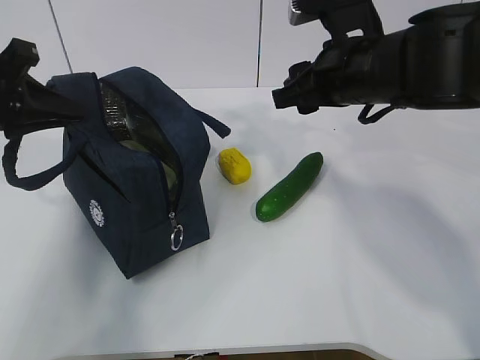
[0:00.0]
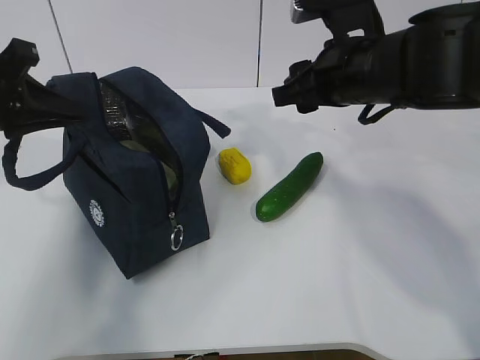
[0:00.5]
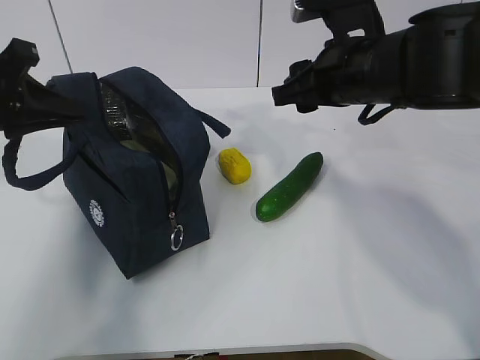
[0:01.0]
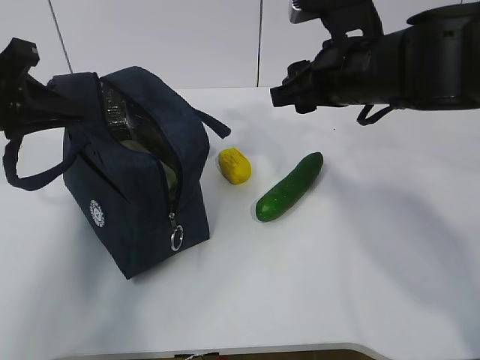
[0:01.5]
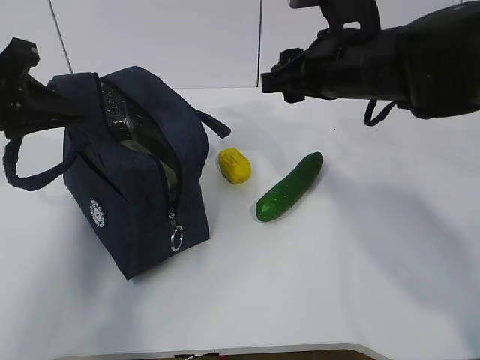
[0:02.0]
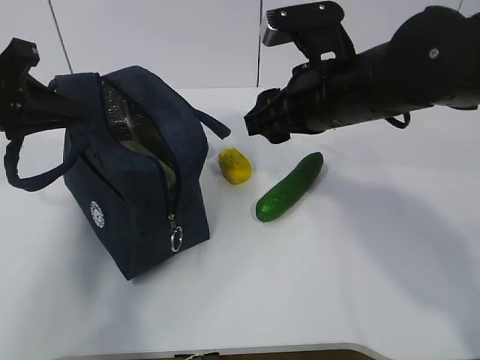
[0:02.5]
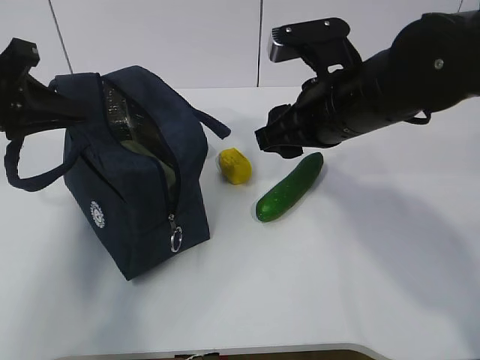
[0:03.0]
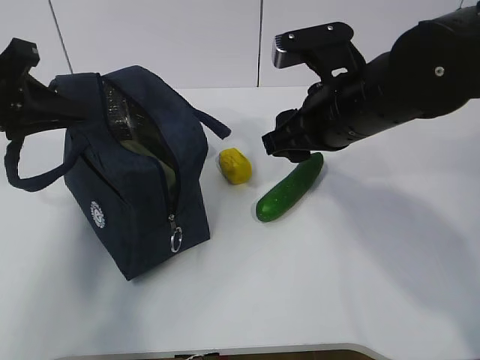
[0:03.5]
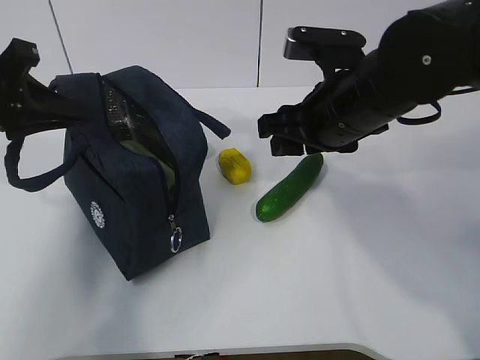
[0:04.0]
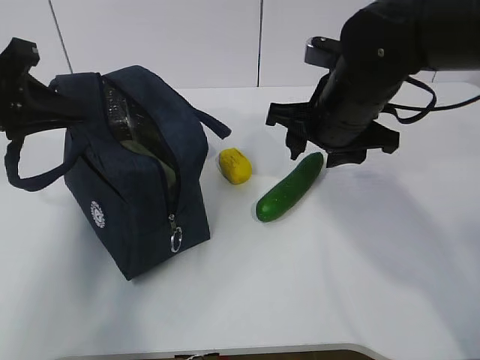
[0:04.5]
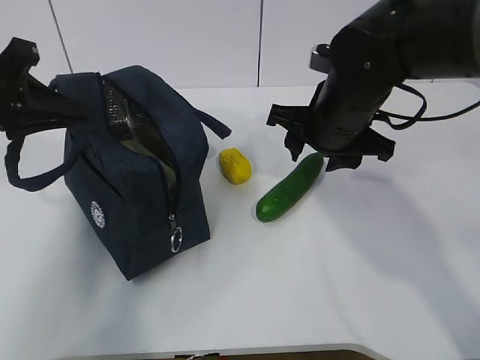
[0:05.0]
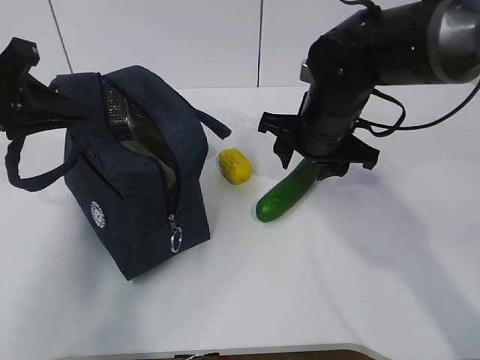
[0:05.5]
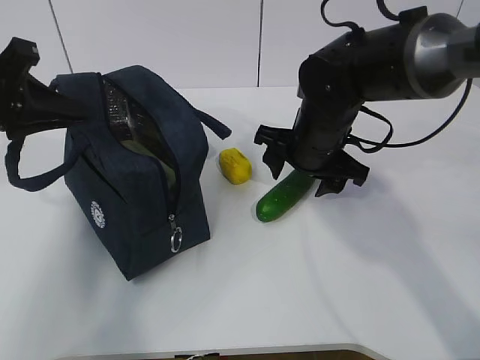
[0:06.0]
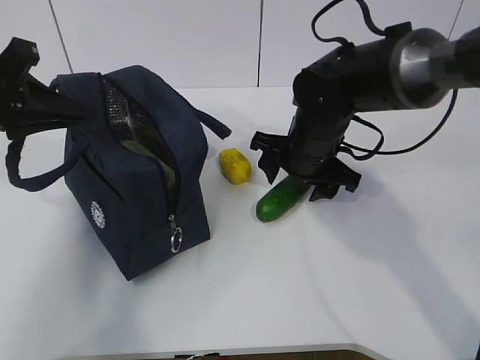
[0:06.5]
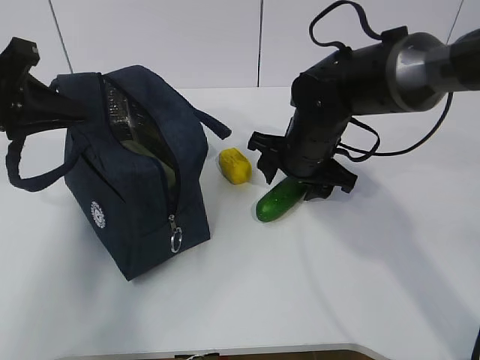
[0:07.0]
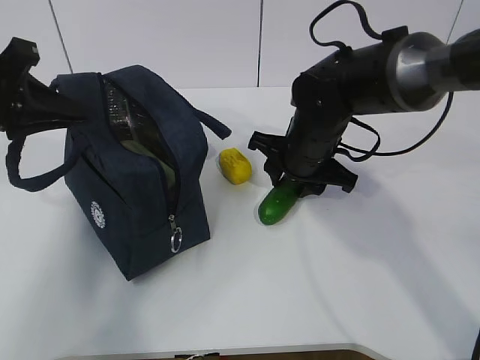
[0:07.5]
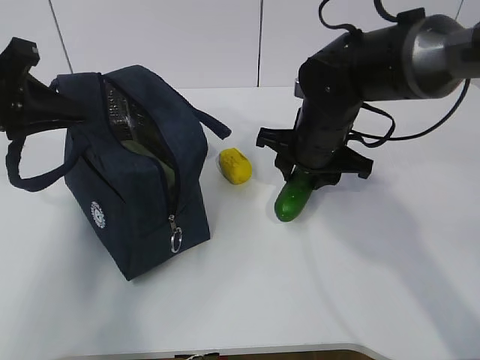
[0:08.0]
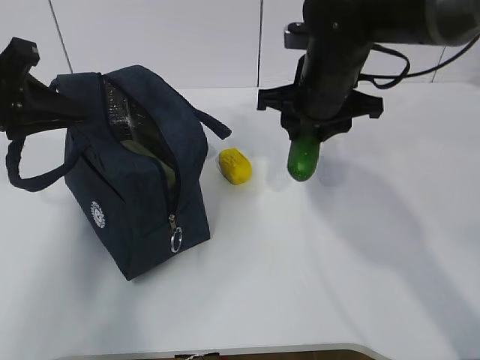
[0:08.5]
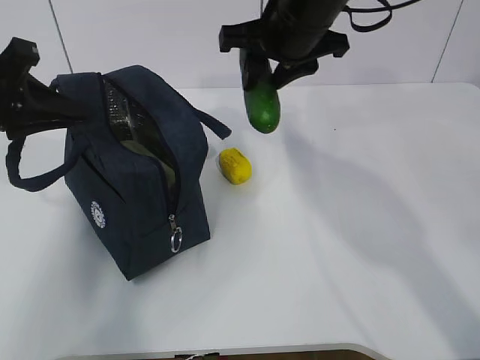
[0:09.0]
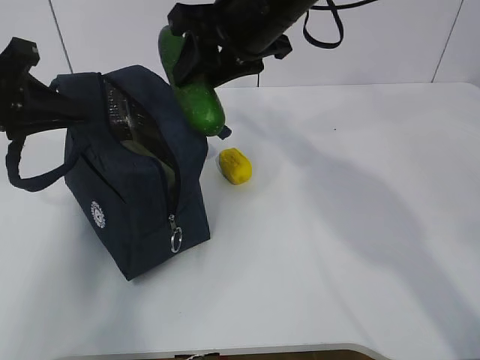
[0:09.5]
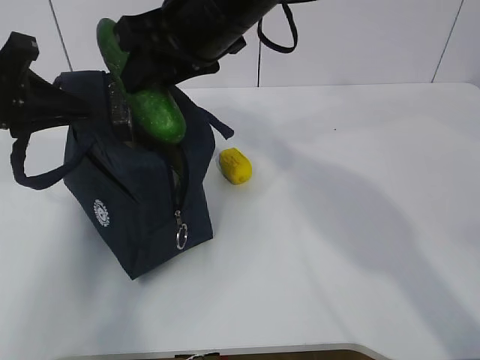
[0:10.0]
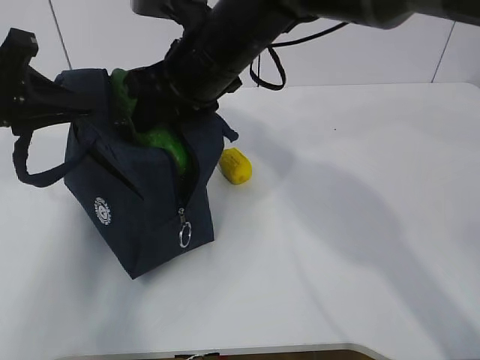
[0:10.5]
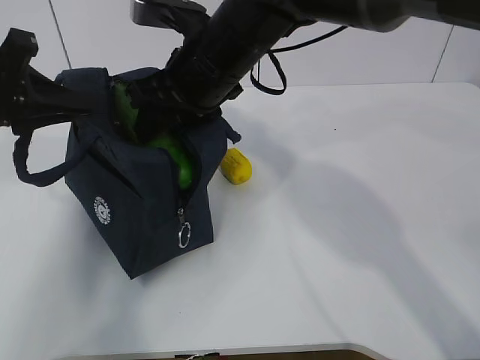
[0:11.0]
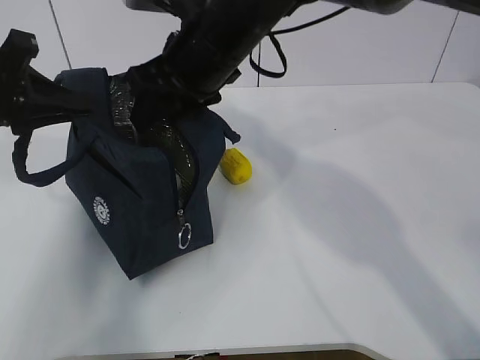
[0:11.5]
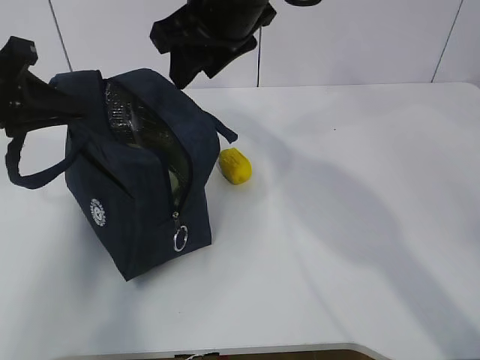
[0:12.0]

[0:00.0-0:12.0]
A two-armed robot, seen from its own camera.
Step, 1.5 to 4.0 s: Place it into the bag with your right hand.
Step, 4.5 to 9.0 s: Grab the lemon with your right hand.
0.0 to 2.0 s: The grippers stay close to where they were, moving slightly.
4.0 to 6.0 s: The right gripper travels downward and forward by about 10 cm.
6.0 to 8.0 s: The right gripper closes up.
8.0 to 10.0 s: The right gripper goes some 20 cm upward and to the left.
10.0 to 12.0 s: The grippers move only a little.

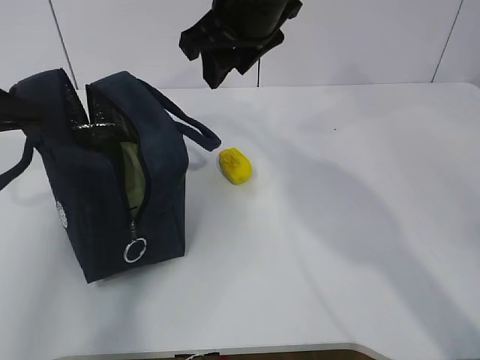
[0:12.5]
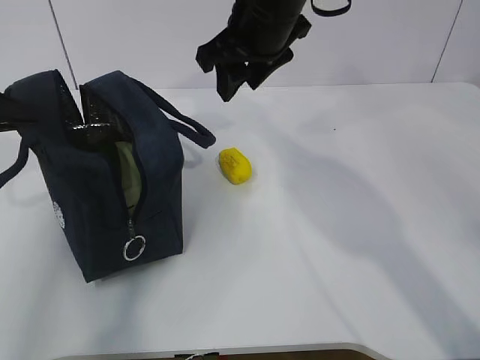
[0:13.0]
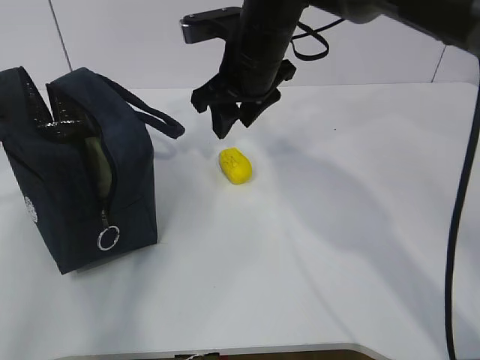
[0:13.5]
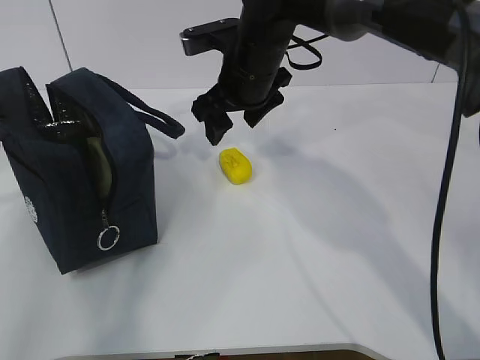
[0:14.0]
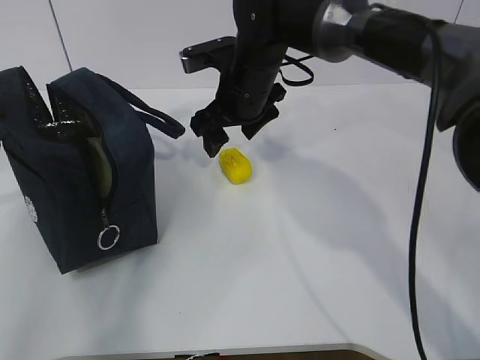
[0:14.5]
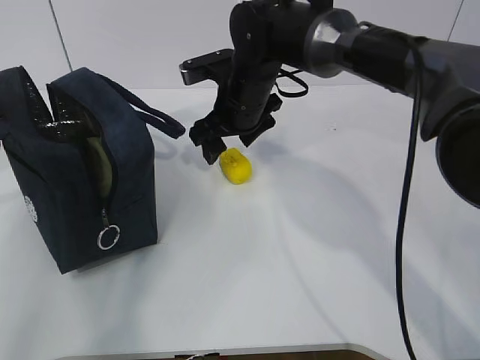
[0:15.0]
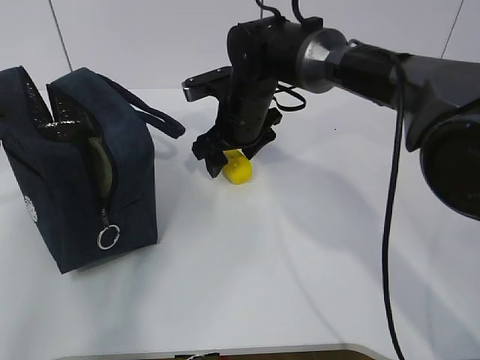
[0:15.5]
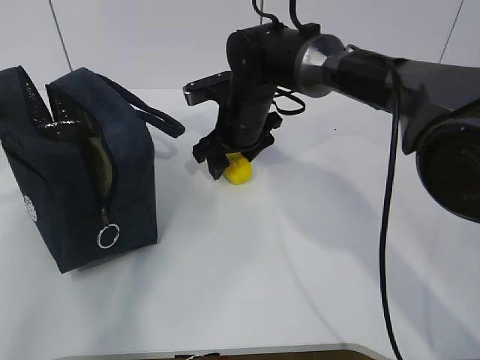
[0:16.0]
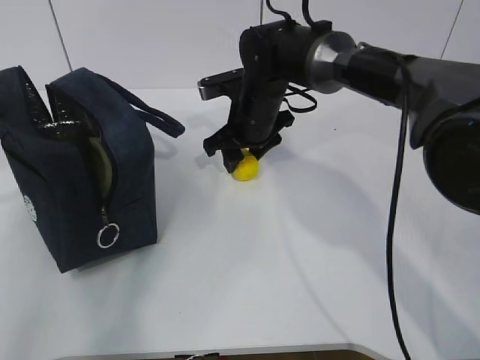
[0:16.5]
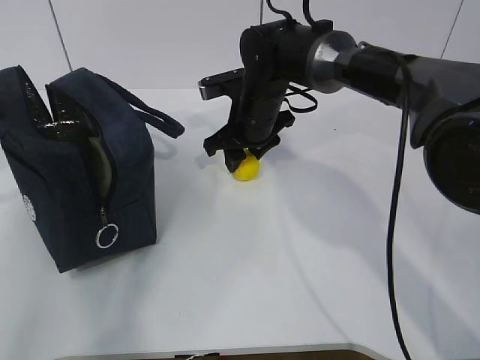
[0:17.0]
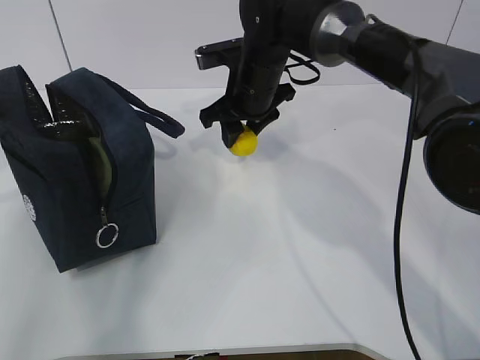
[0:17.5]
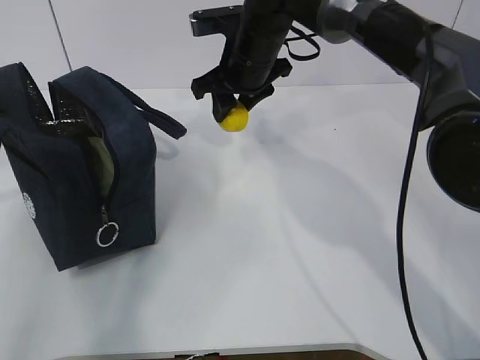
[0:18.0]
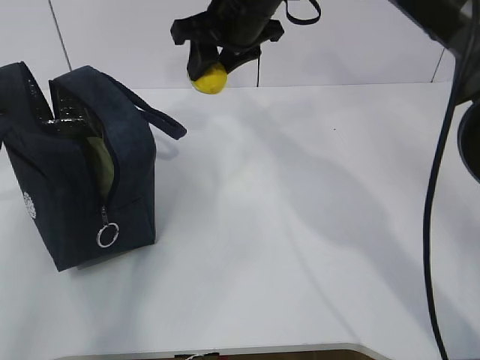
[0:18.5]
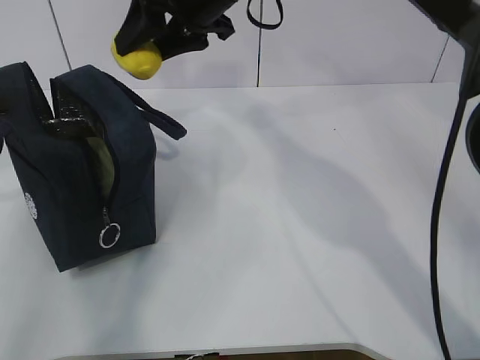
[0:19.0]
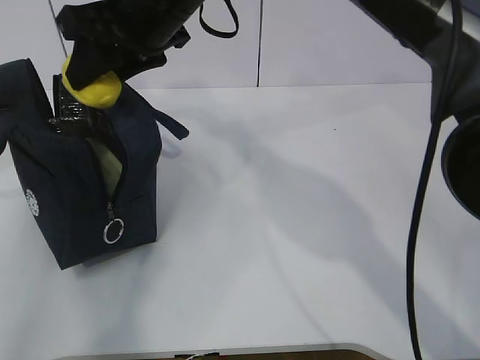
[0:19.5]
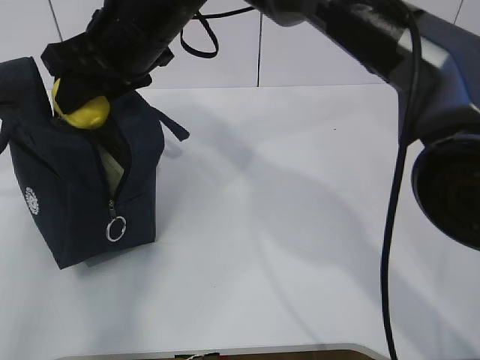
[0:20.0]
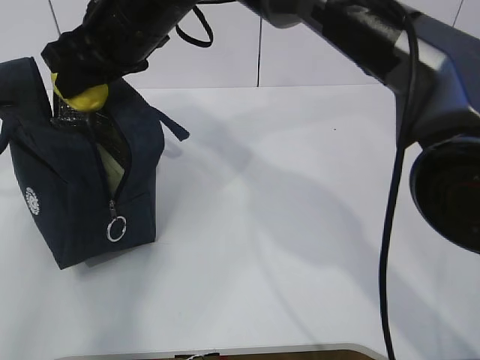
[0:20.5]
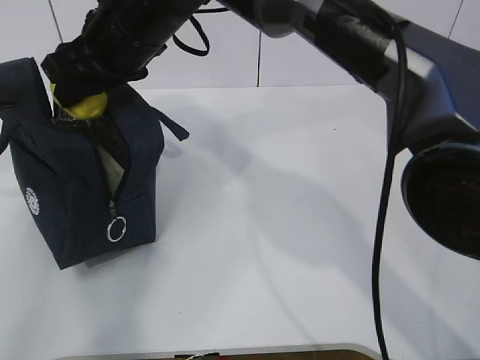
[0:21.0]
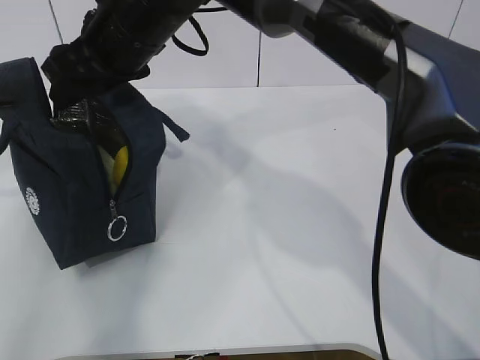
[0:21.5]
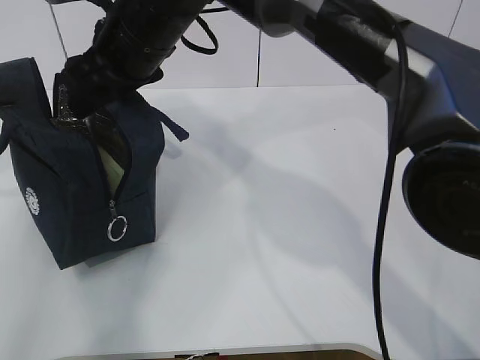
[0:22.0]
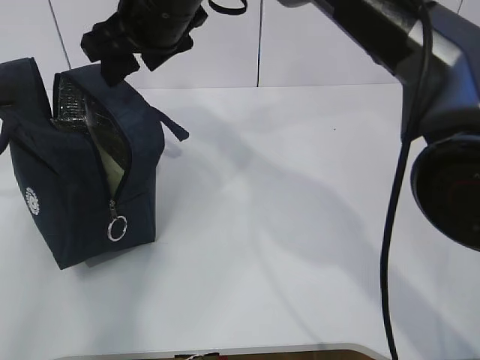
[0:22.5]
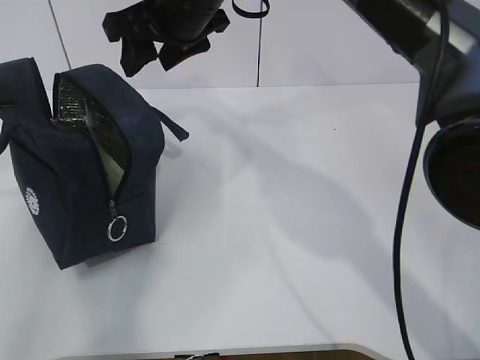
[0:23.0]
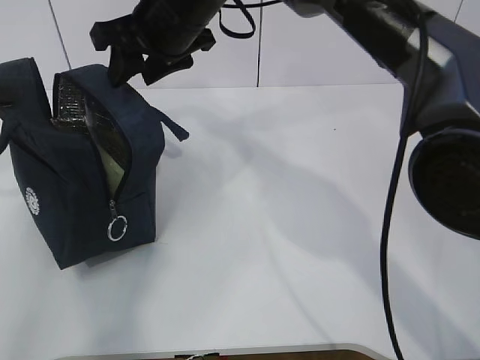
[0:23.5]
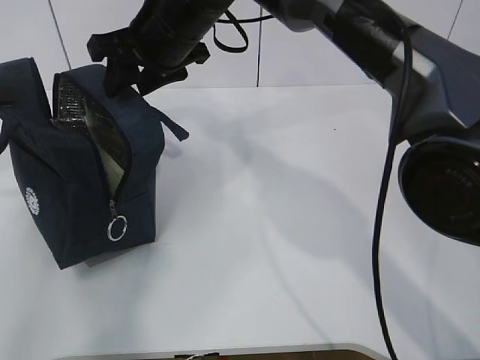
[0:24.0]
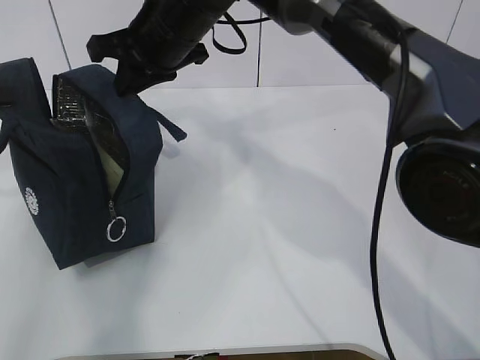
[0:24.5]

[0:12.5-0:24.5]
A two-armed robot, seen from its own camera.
Step, 13.5 to 15.5 s: Grab the lunch bag with your right hand.
Step, 16.0 to 20.5 s: Move the lunch bag to the right.
12.5 to 14.5 s: The right gripper shifts approximately 15 cm downward and forward.
14.5 to 16.5 s: The right gripper moves some 5 cm.
16.5 to 18.5 s: The right gripper moves upward, approximately 15 cm.
18.5 to 20.5 s: The right gripper is displaced to the left and backward by some 10 cm.
20.5 to 22.5 s: The grippers stay close to where they were, moving slightly.
22.5 to 24.5 s: The right gripper closes up.

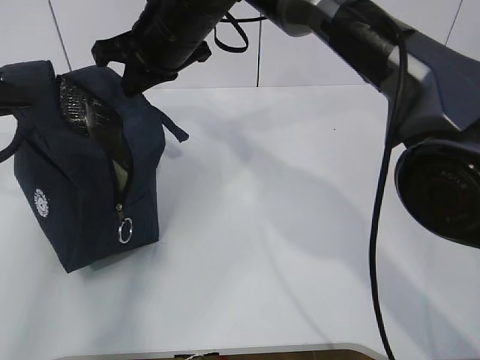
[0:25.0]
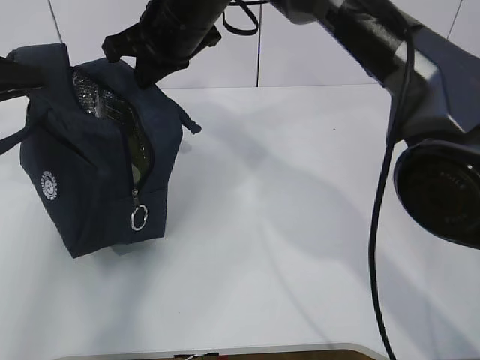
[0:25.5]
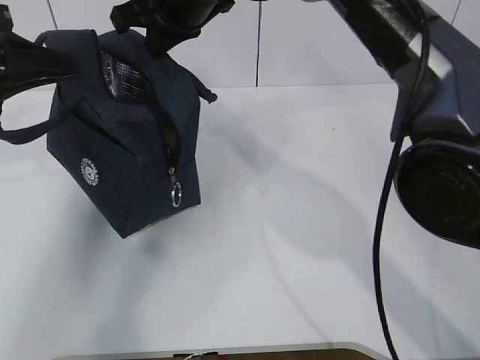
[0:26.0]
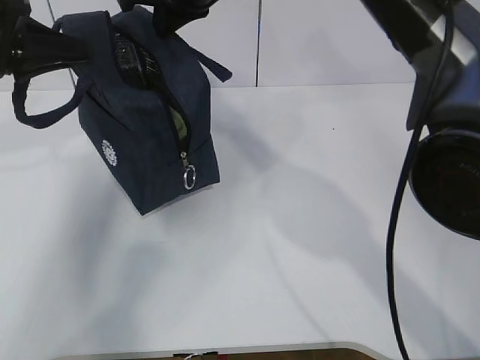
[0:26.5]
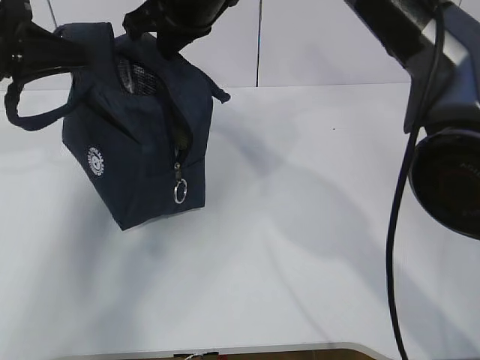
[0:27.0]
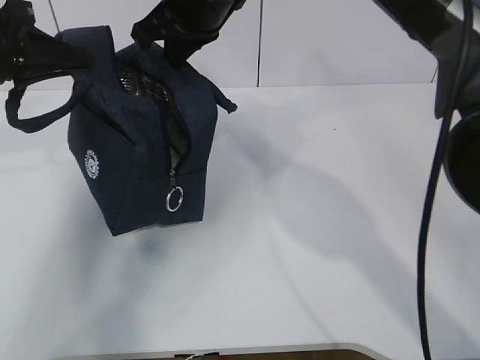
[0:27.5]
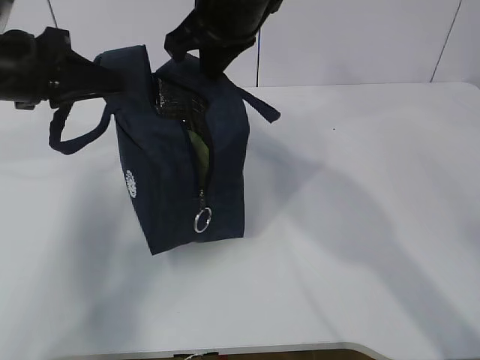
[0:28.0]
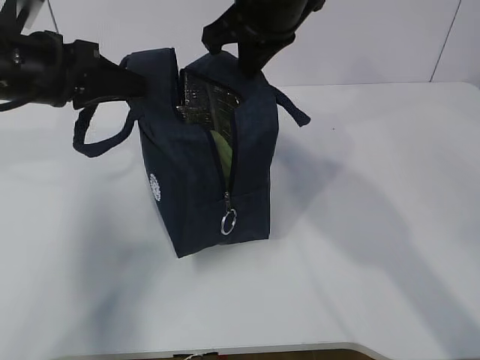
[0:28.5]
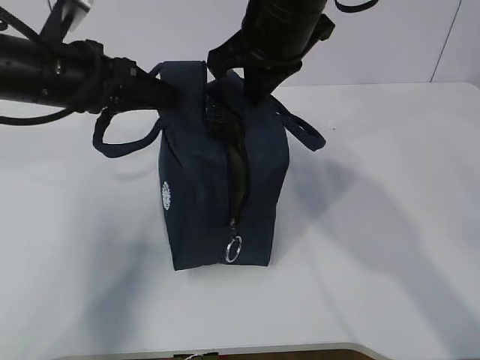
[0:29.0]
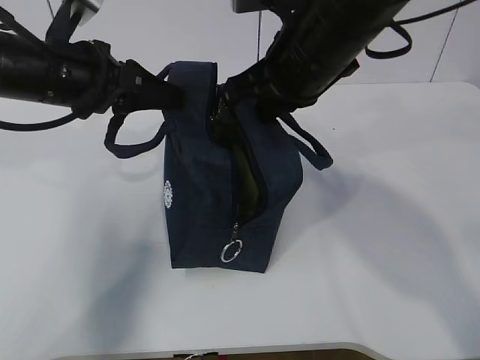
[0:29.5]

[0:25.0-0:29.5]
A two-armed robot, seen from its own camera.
25.0 to 27.0 s: The left gripper is displaced to the right by approximately 5 cm. Meanwhile the right gripper moves some 5 cm.
27.0 to 29.5 s: The left gripper travels to the right by some 10 cm, while the right gripper travels to the right and backward by some 10 cm.
